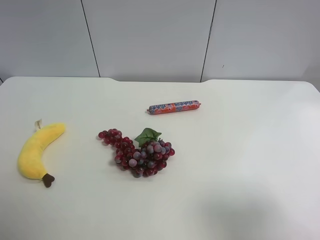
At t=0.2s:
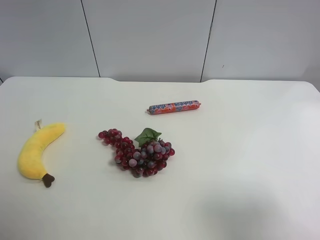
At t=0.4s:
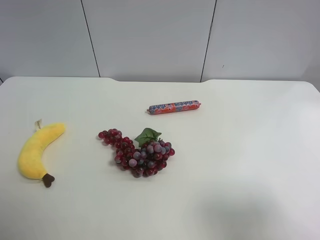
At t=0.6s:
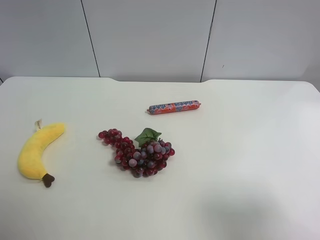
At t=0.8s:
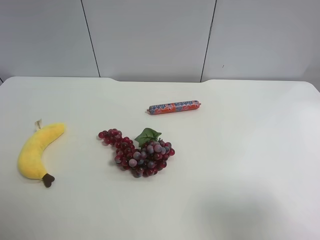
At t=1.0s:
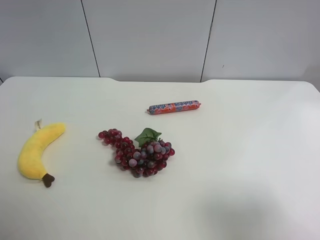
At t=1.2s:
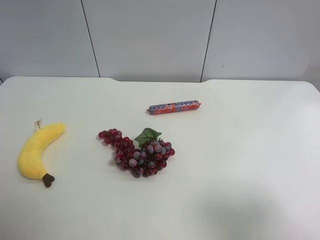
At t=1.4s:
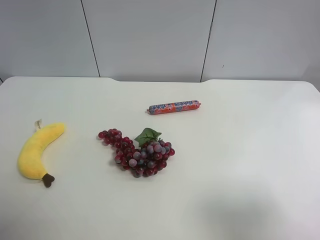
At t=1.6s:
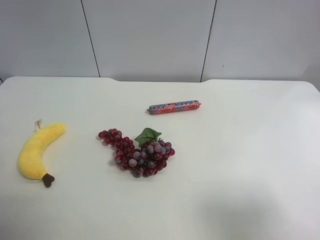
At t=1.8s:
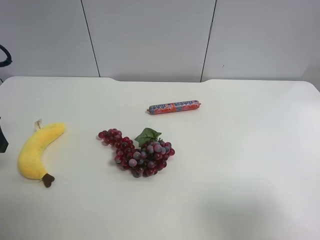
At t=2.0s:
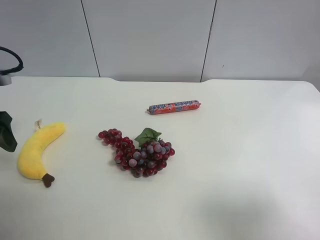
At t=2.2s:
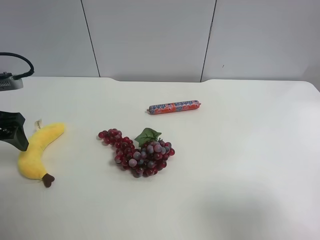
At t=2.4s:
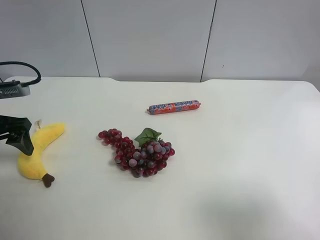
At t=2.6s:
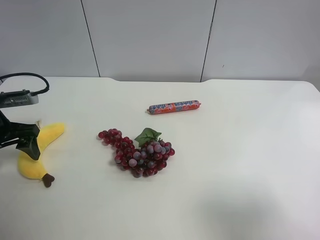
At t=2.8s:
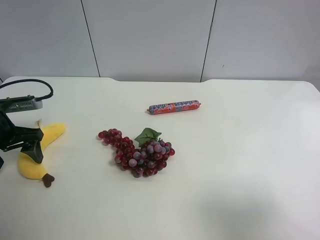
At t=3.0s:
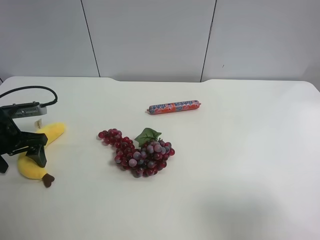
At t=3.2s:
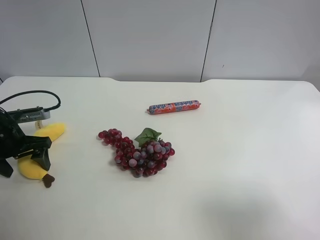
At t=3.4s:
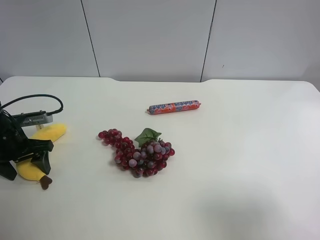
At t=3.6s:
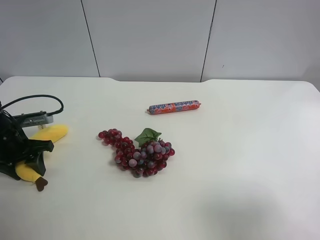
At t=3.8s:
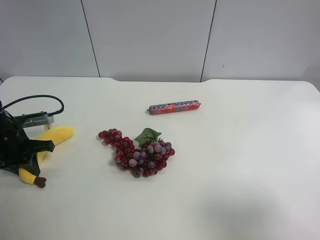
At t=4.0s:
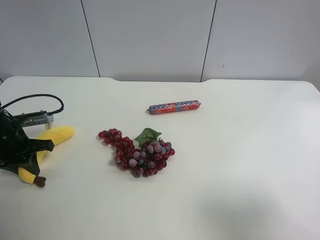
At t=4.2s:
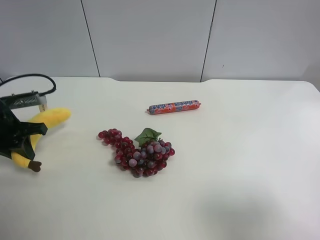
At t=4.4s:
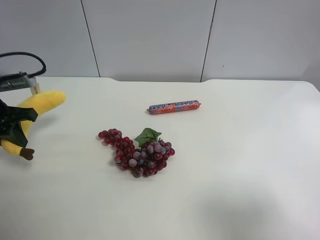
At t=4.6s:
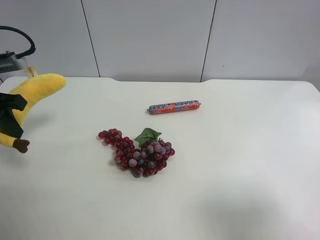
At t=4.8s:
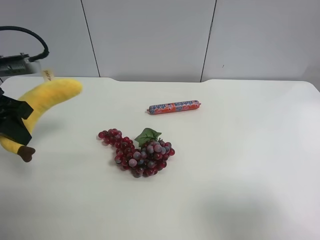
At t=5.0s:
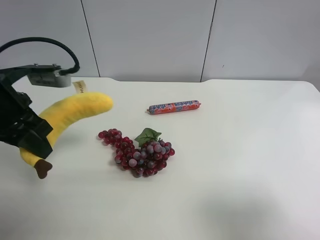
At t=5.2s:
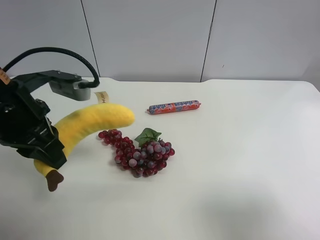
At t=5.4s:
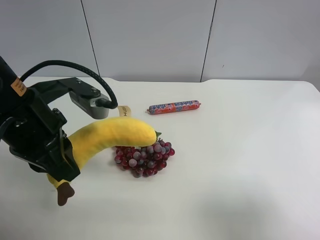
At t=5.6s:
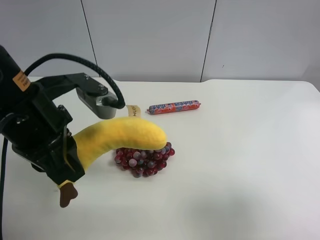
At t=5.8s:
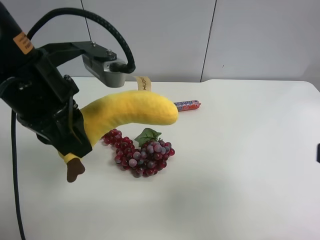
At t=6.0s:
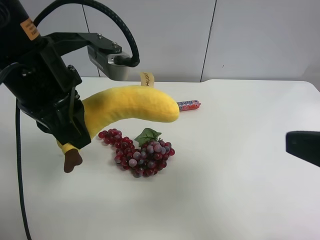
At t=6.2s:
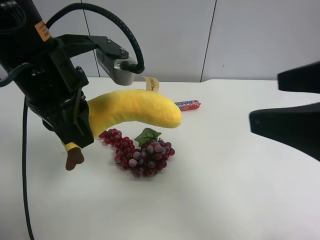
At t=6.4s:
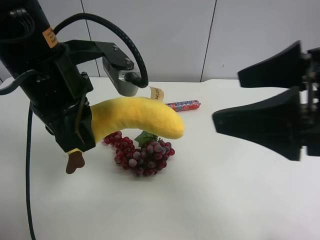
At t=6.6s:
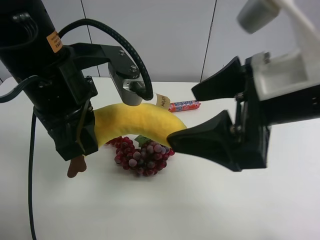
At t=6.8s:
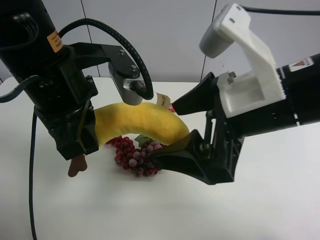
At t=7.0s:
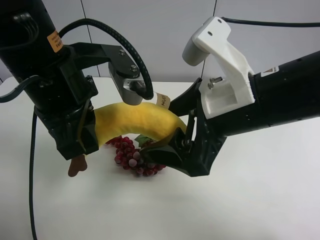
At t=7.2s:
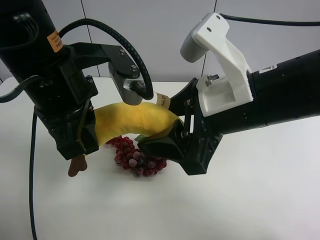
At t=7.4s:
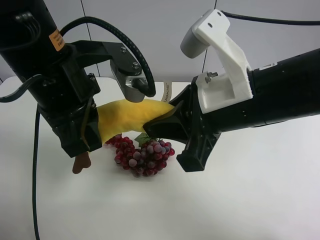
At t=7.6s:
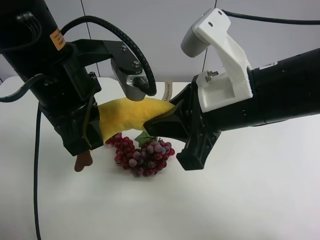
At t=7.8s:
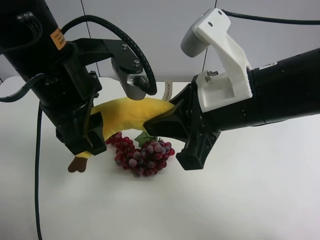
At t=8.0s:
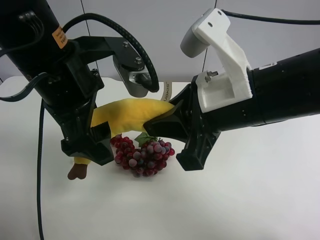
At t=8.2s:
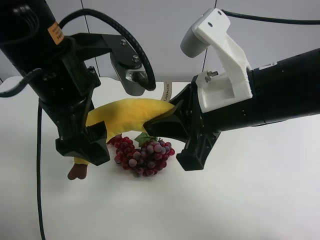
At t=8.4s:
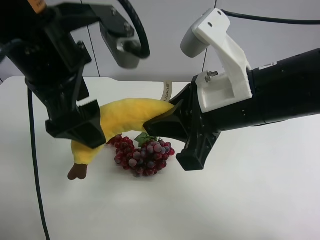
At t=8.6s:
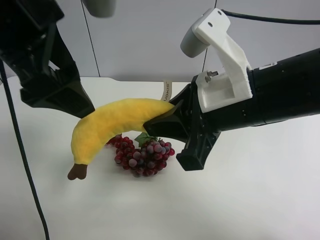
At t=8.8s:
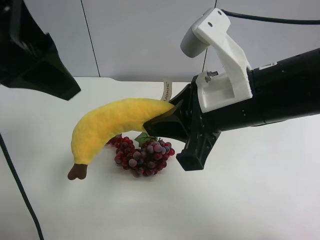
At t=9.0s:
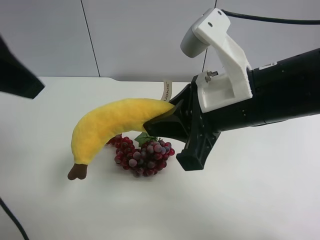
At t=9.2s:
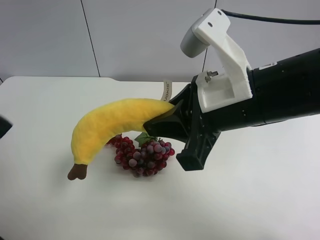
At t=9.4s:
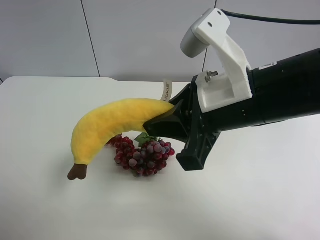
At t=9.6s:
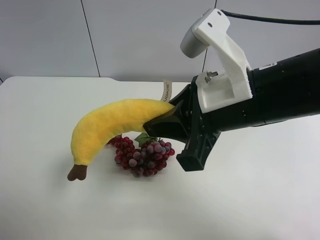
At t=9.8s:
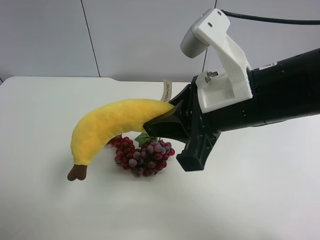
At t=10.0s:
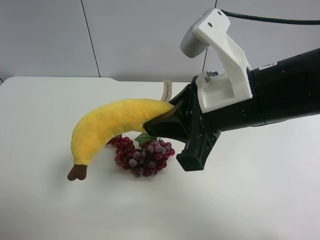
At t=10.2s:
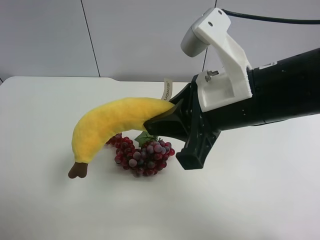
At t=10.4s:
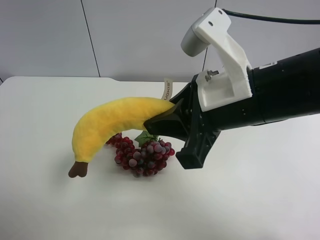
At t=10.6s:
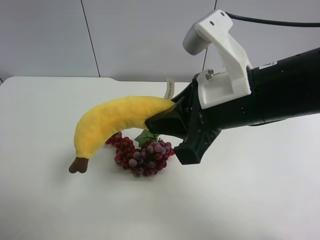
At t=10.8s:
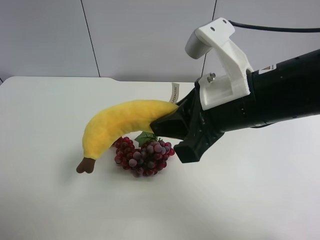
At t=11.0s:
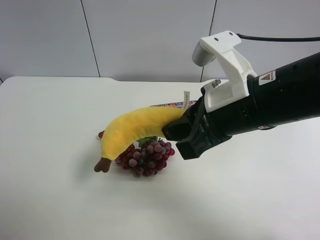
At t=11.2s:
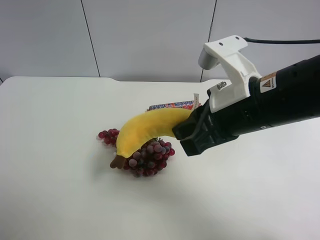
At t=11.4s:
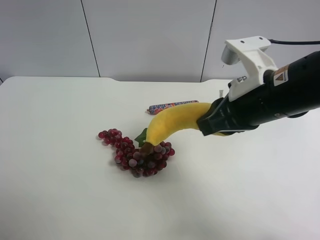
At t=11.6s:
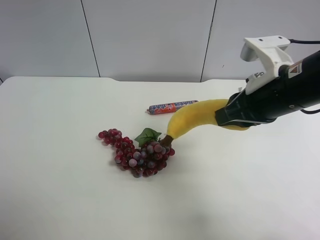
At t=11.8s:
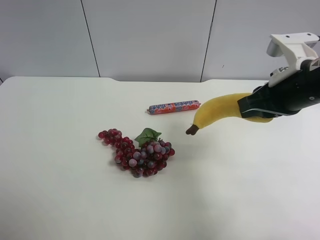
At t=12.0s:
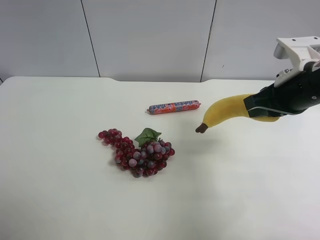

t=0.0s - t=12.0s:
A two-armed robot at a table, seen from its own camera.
Task of the whole recording: use the left gripper to pick up the item and transfer it from the left gripper to the right gripper.
t=1.6s - t=3.0s: The left gripper is displaced downward and forward by about 20 cm.
t=3.0s - t=4.4s: The left gripper travels upward by some 5 cm, and closes its fingers.
t=4.4s - t=6.0s: The right gripper is displaced forward and to the left by some 10 cm. The left gripper is displaced to the right and upward by approximately 20 cm.
t=6.0s - t=7.6s: The right gripper heads to the left and forward, covering about 15 cm, and closes up.
t=7.6s - t=9.0s: The left gripper goes about 15 cm to the left and upward, and opens up.
t=9.0s - t=10.4s: The left gripper heads backward, downward and to the left, covering approximately 20 cm.
t=10.4s - t=12.0s: The right gripper goes approximately 15 cm to the right and forward.

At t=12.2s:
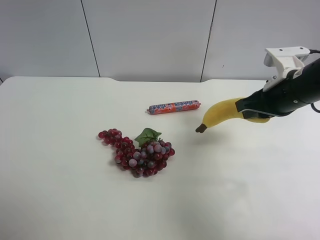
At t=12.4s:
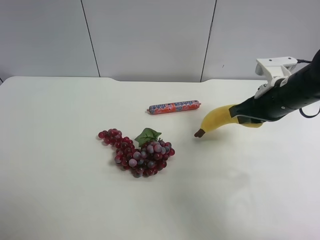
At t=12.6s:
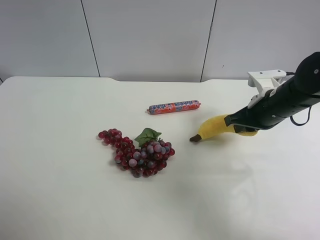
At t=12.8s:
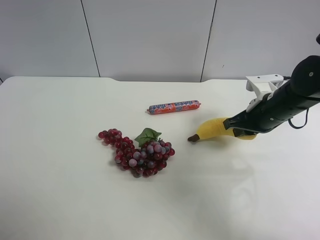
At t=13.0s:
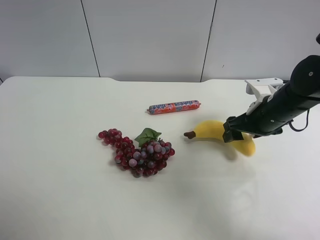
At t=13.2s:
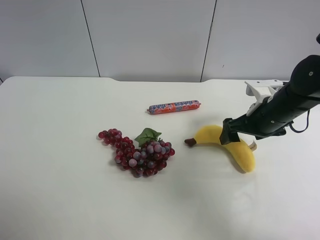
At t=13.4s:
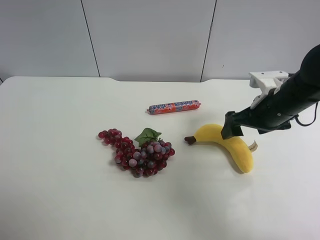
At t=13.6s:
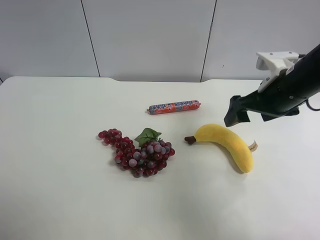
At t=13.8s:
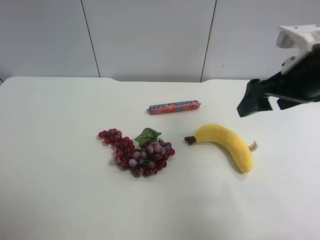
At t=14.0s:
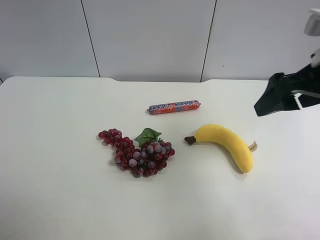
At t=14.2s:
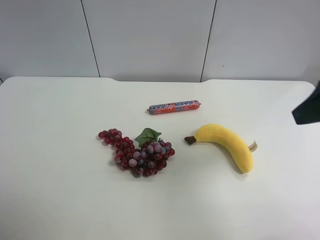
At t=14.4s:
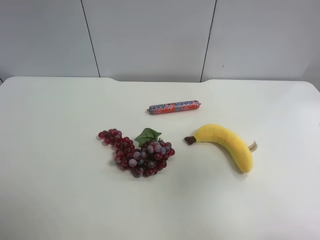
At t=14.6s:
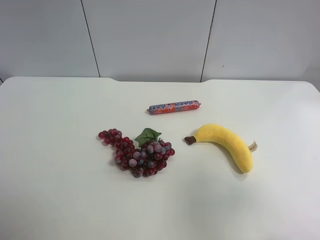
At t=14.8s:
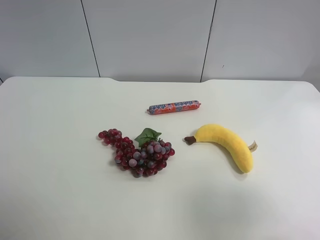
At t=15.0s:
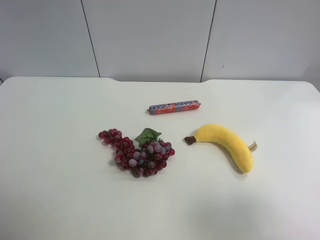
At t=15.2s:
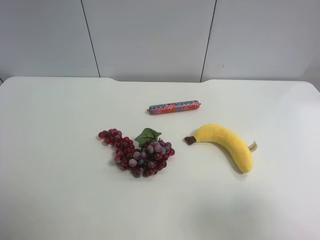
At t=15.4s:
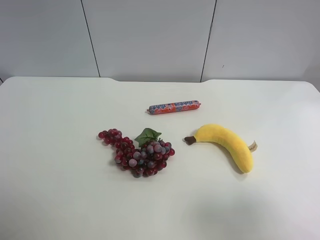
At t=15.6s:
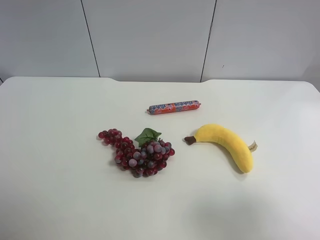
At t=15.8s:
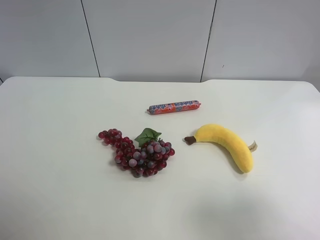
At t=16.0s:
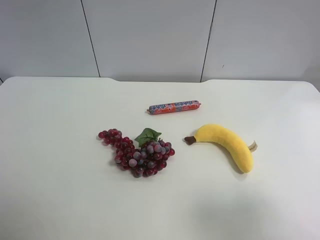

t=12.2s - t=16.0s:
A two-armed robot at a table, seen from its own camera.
Task of the whole recording: use the left gripper to pick up the item and transfer it from the left gripper to the right gripper.
t=12.2s - t=13.4s: The right gripper opens.
t=13.4s - t=14.8s: The right gripper is displaced backward and upward by some 30 cm.
